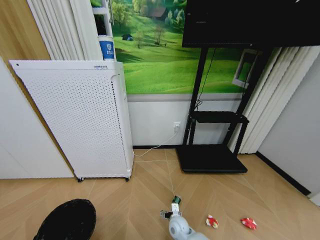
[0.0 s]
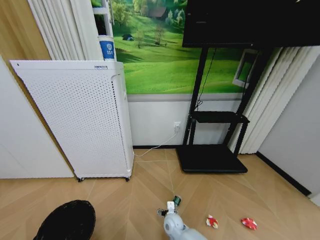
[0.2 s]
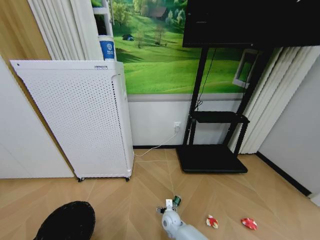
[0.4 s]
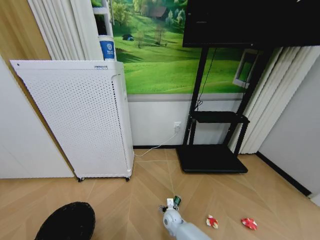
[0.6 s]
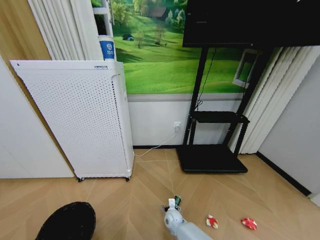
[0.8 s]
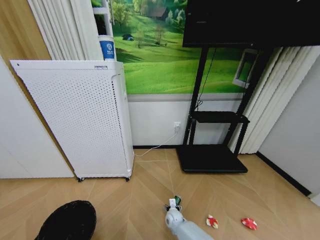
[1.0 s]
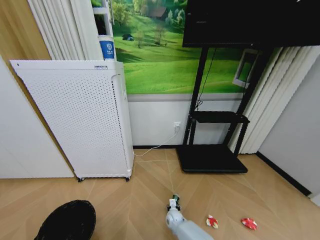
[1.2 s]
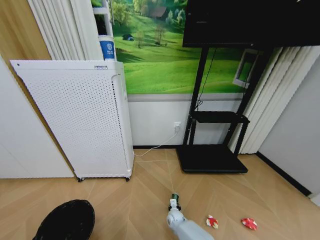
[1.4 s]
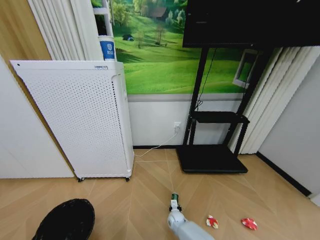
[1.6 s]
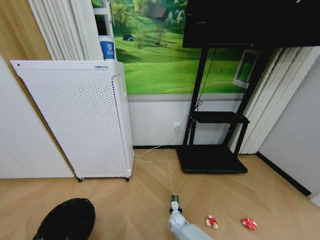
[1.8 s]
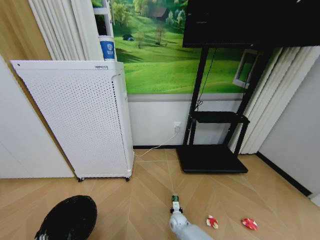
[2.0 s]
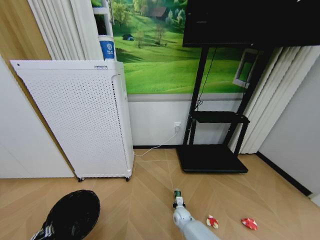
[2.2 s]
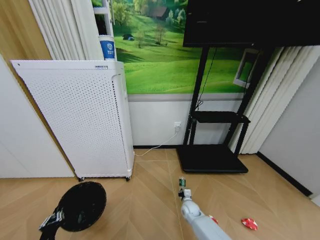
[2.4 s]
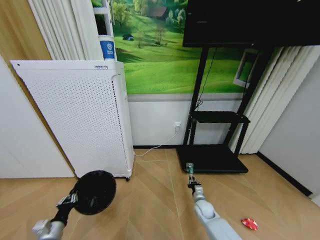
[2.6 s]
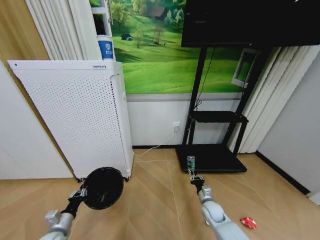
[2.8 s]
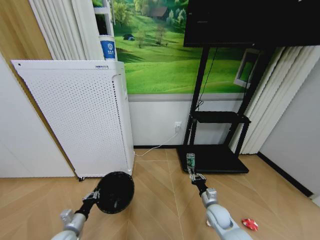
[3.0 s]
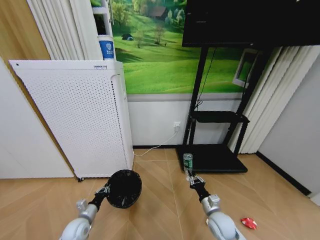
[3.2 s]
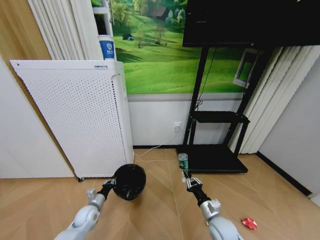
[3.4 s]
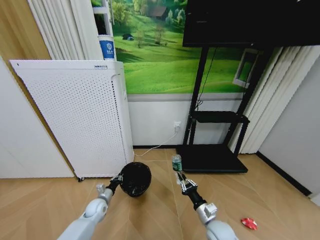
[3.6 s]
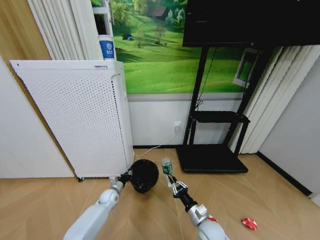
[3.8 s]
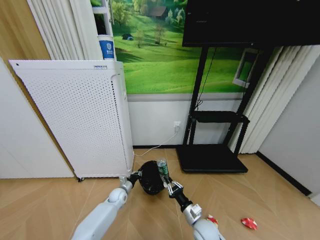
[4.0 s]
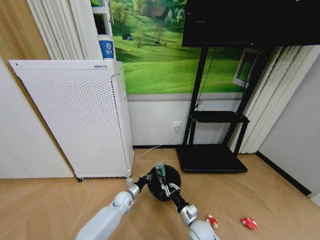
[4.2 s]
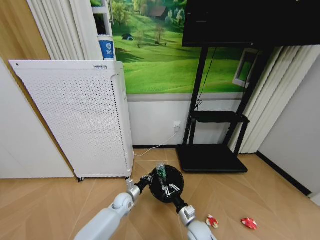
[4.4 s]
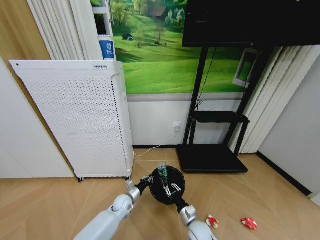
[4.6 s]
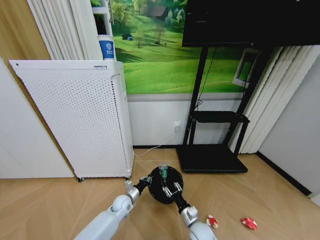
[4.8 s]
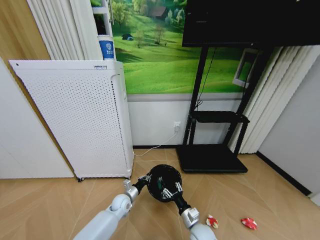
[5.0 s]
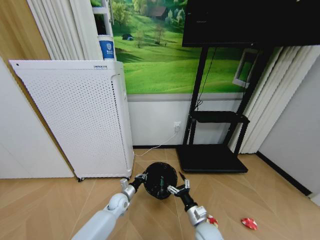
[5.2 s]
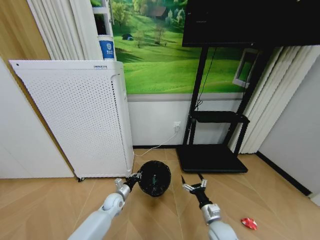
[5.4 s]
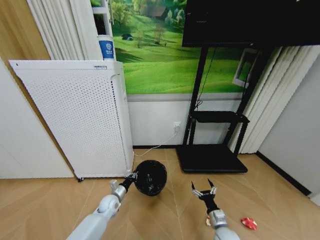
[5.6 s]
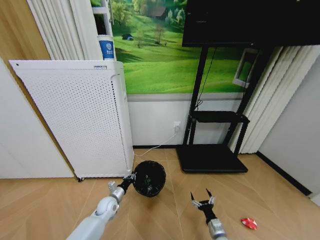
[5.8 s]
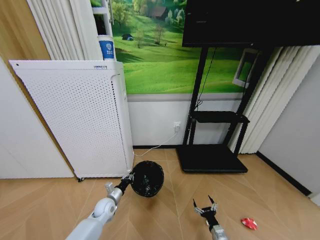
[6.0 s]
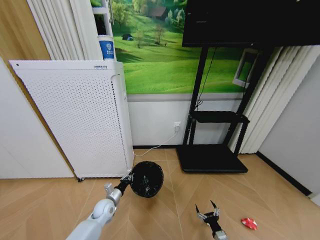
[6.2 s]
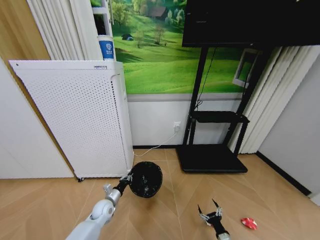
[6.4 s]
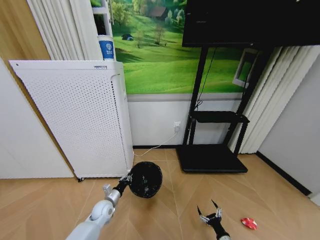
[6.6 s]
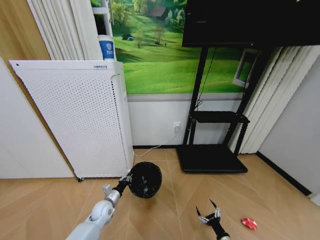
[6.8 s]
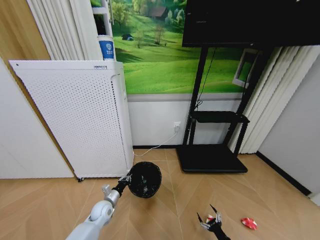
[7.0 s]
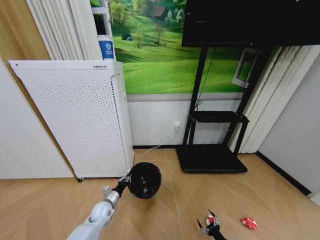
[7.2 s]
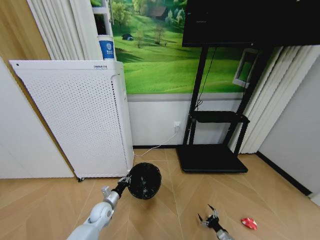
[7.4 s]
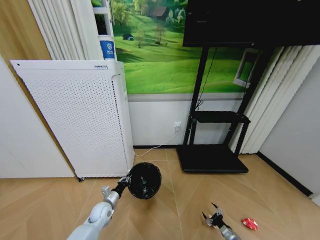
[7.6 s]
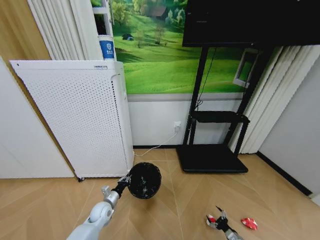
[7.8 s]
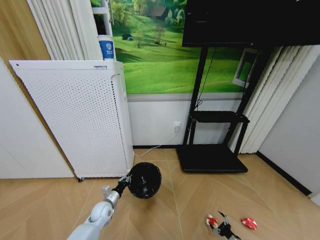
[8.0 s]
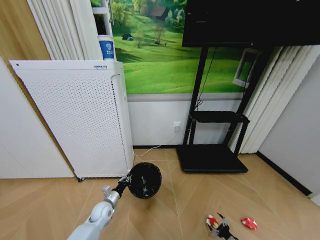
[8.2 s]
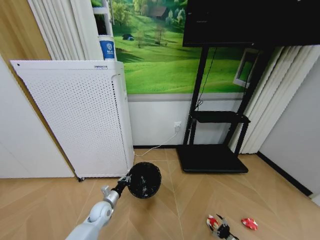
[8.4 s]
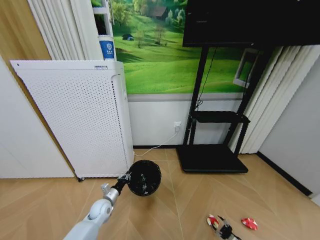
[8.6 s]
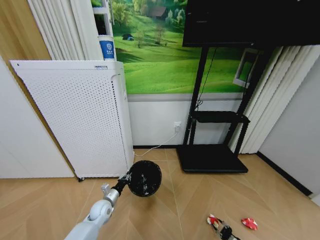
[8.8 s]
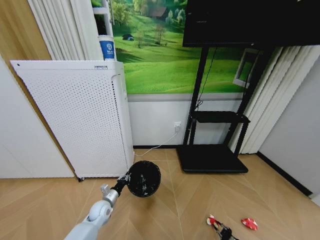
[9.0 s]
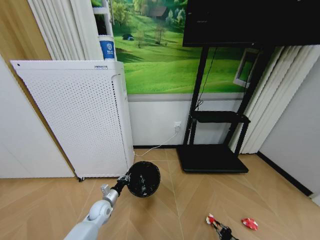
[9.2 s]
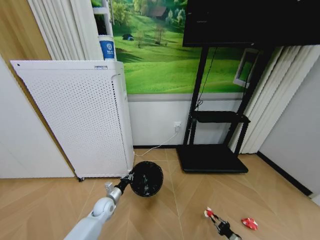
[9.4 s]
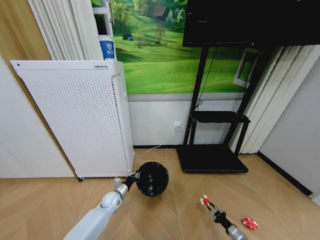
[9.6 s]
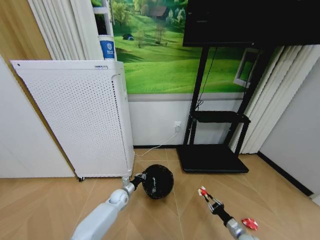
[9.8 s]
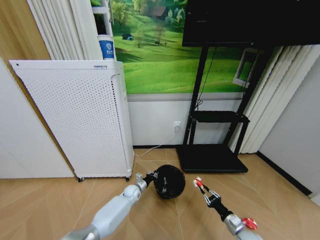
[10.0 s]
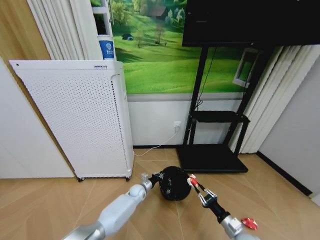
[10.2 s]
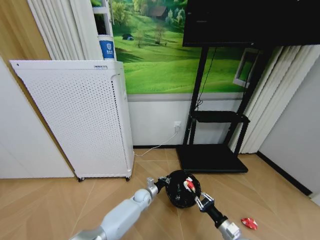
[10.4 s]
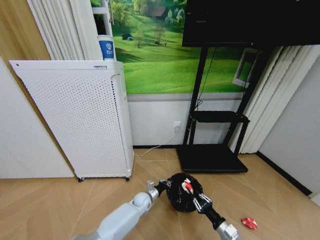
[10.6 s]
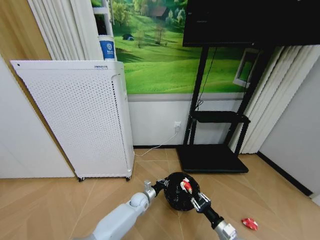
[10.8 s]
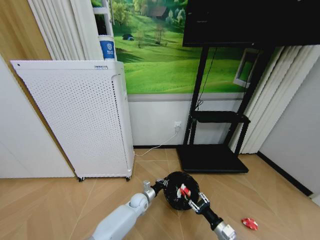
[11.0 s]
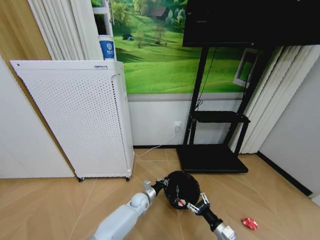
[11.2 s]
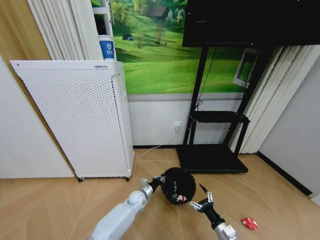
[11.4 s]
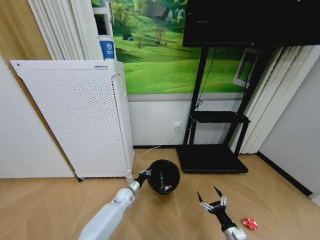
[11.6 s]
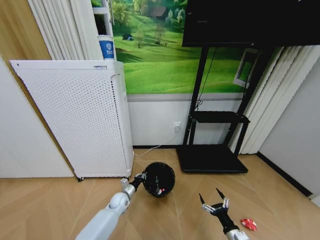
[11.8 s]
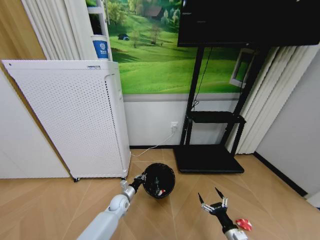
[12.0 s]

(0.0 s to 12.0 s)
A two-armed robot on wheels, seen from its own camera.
Task of the whole recording: Pick up the trash bin and place the garbage on the floor into it.
0.0 s - 1.6 s: The right gripper is displaced downward and forward by approximately 10 cm, and closes up.
1.6 s - 3.0 s: The left gripper is displaced forward by about 20 cm; the right gripper moves upward and to the right, about 25 cm.
3.0 s - 4.4 s: The left gripper shifts approximately 25 cm to the right and forward. The right gripper is displaced to the left and backward by about 15 cm.
4.4 s - 6.0 s: The left gripper travels to the left by roughly 10 cm. The right gripper is displaced to the right, downward and backward by roughly 20 cm, and opens its fingers.
6.0 s - 7.6 s: The right gripper shifts roughly 15 cm to the right and downward.
7.6 s - 9.0 s: The right gripper shifts by some 5 cm, and closes its fingers.
9.0 s - 10.4 s: The left gripper shifts about 20 cm to the right, while the right gripper travels upward and to the left by about 25 cm.
10.4 s - 12.0 s: The left gripper goes roughly 15 cm to the left, while the right gripper opens its fingers.

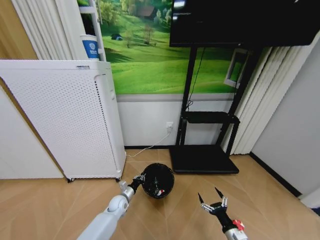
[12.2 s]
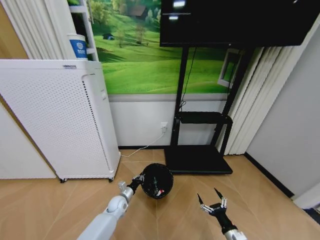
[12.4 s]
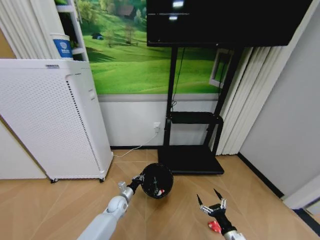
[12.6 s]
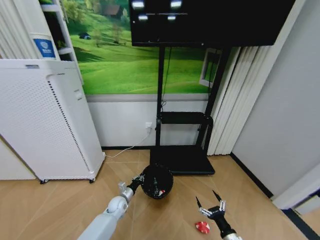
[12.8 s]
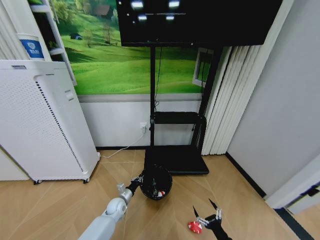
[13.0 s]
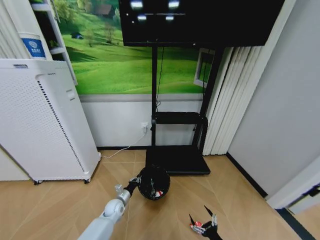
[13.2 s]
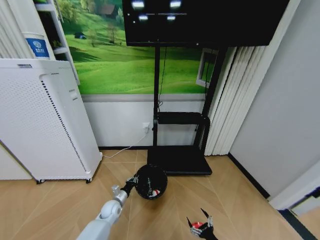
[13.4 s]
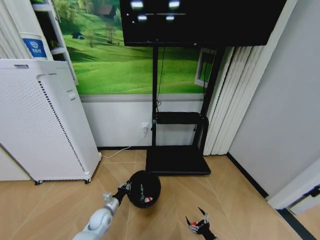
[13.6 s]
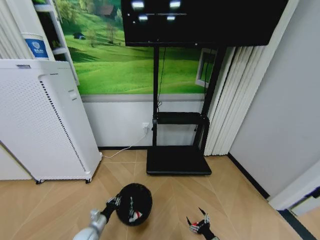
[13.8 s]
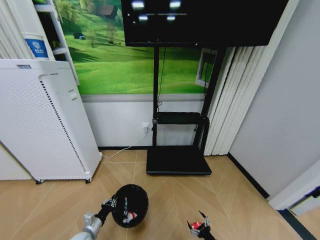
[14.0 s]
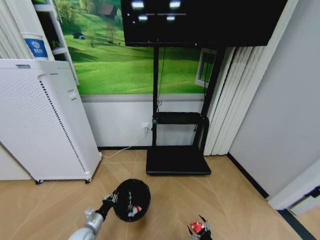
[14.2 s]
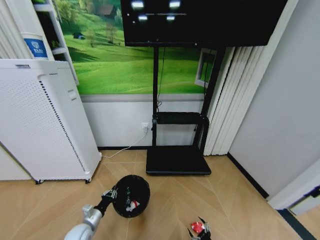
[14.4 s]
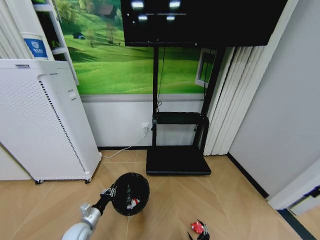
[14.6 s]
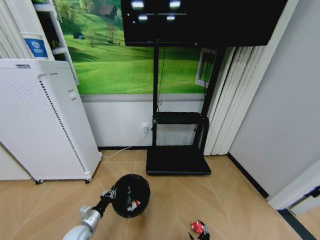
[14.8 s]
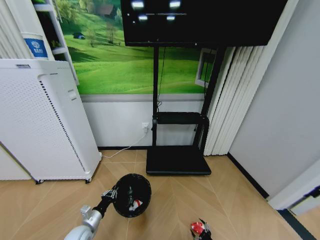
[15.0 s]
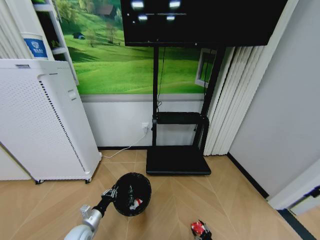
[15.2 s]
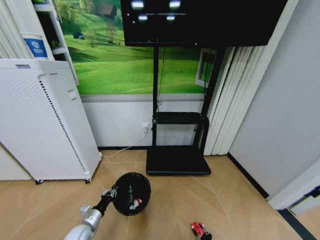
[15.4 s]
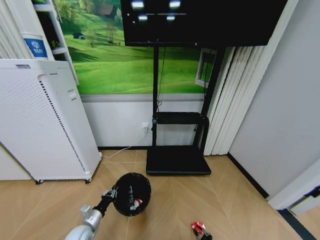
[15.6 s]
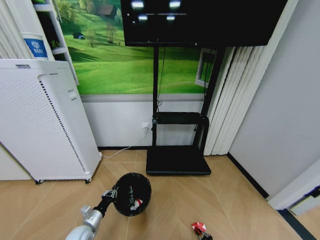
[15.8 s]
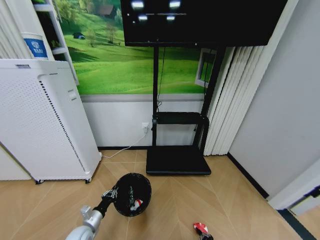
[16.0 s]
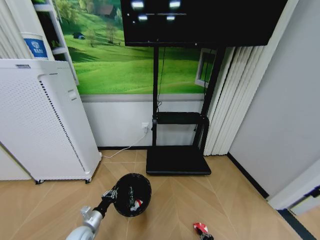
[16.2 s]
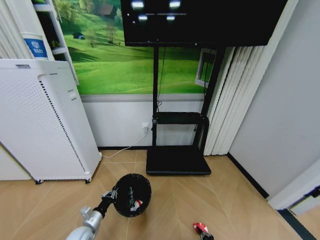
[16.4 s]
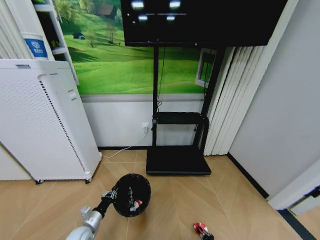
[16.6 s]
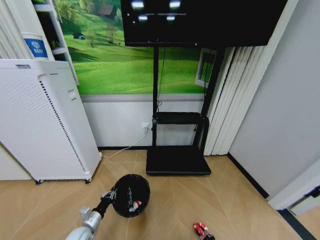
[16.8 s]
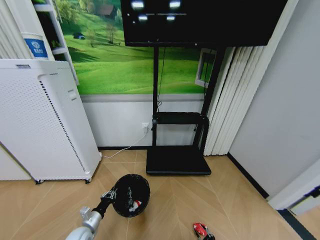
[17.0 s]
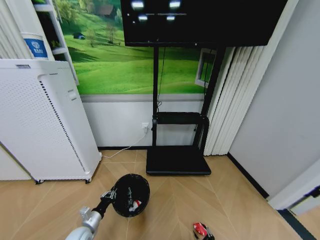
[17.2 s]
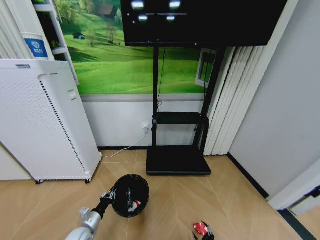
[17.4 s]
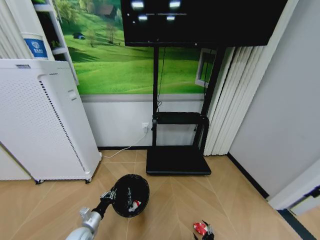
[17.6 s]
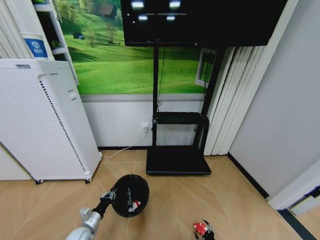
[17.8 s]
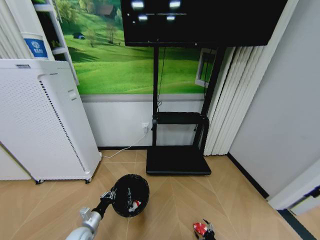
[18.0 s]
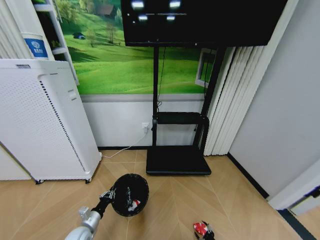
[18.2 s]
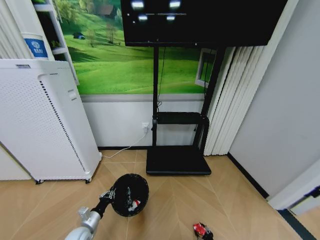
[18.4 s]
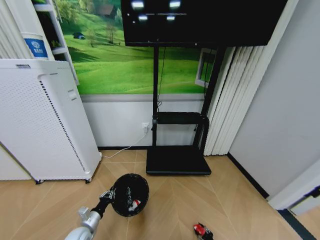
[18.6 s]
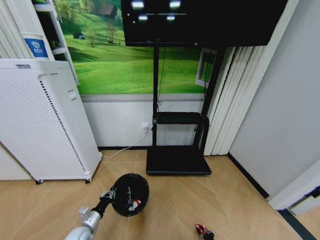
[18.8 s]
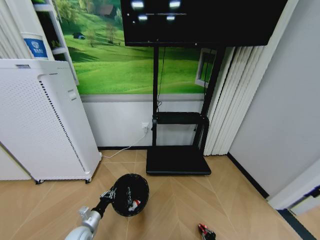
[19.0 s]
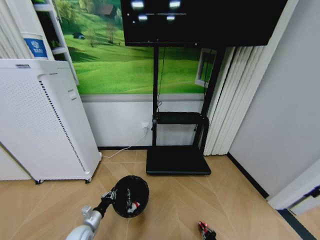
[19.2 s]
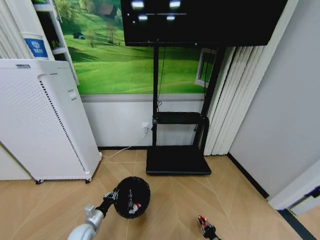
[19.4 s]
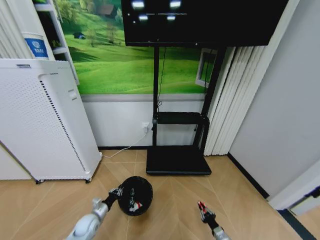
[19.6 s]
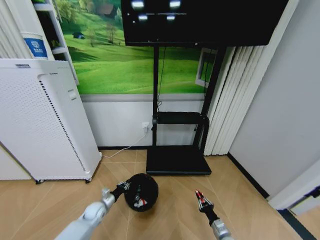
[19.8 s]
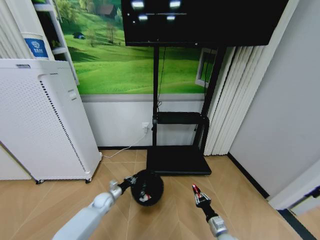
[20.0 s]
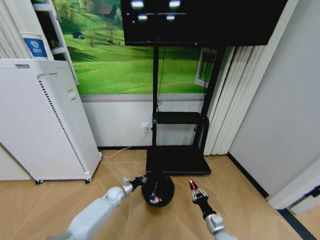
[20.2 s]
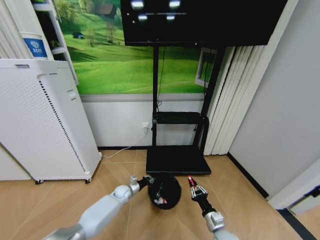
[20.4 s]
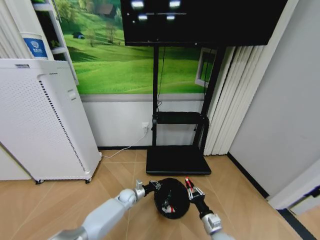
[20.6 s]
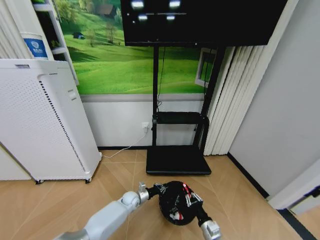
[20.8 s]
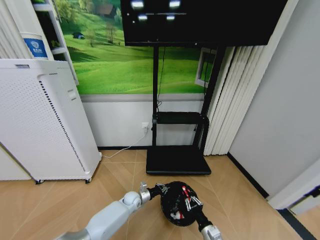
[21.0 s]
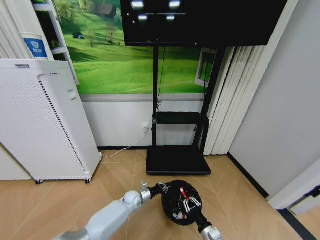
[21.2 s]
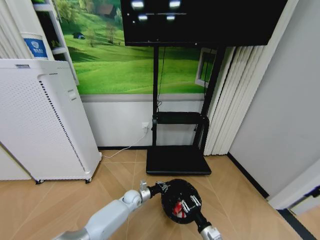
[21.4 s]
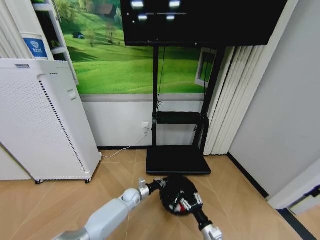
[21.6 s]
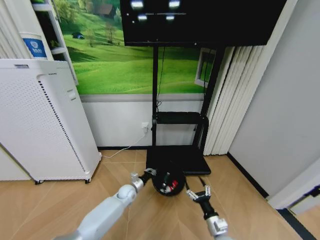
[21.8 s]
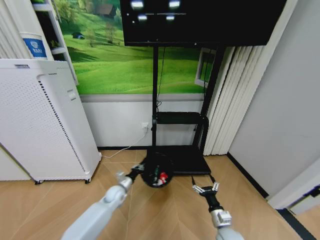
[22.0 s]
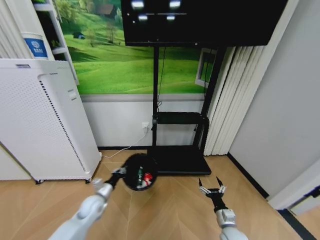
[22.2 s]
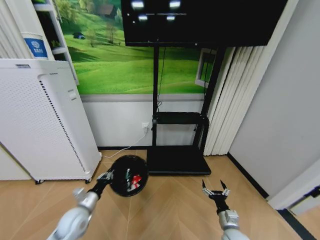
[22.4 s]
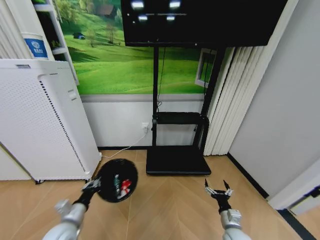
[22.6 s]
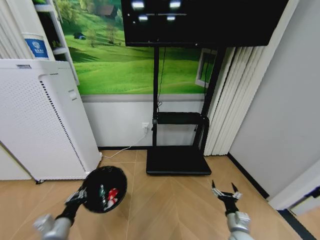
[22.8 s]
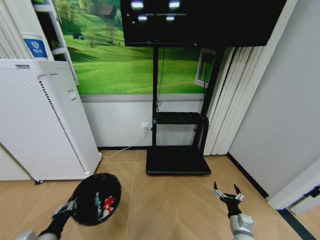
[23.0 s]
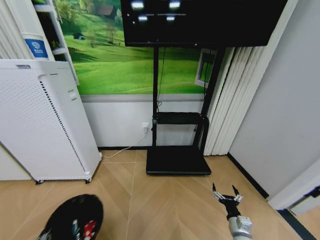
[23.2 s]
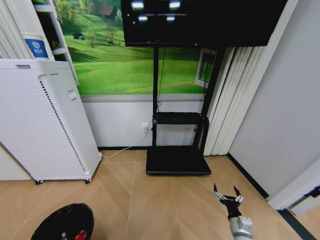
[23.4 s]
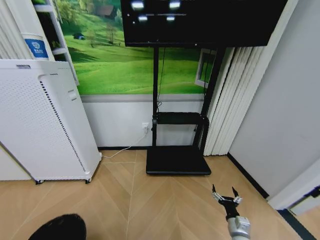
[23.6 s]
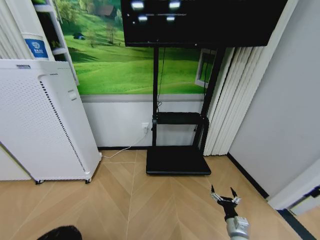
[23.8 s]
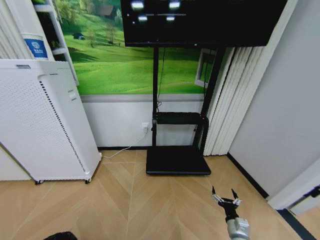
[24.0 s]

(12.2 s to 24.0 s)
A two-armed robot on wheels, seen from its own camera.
Task of the whole recording: Pick up the trash bin and place the garbage on the floor into it.
12.2 s - 13.6 s: The left gripper goes some 10 cm to the left and backward. Meanwhile the right gripper goes roughly 10 cm downward.
13.6 s - 15.2 s: The left gripper shifts roughly 10 cm backward and to the left, while the right gripper travels downward by roughly 10 cm.
15.2 s - 16.6 s: The right gripper closes its fingers.
16.6 s - 18.2 s: The right gripper opens up.
18.2 s - 19.6 s: The left gripper changes place by about 5 cm; the right gripper shifts roughly 5 cm upward, and closes up.
19.6 s - 21.0 s: The right gripper moves upward and to the left, roughly 20 cm, while the left gripper moves to the right and forward, approximately 25 cm.
21.0 s - 22.6 s: The left gripper goes roughly 30 cm to the left, backward and upward, while the right gripper is displaced to the right by approximately 5 cm, and opens its fingers.
22.6 s - 24.0 s: The left gripper moves backward, approximately 30 cm.
